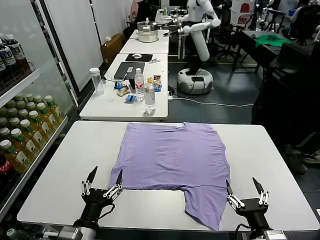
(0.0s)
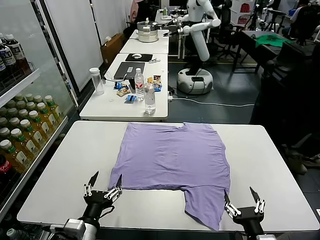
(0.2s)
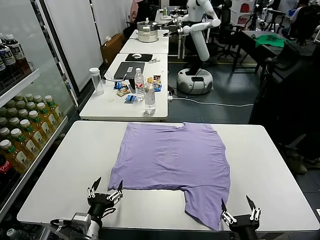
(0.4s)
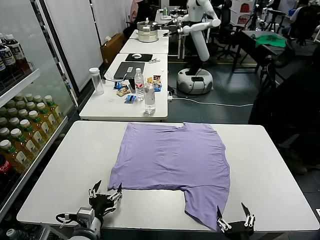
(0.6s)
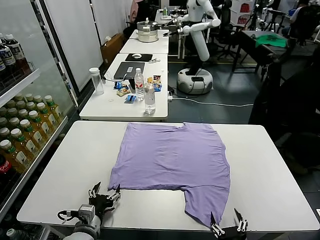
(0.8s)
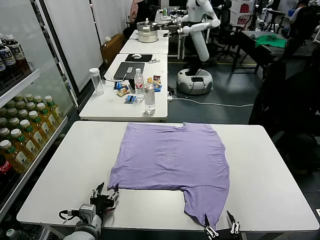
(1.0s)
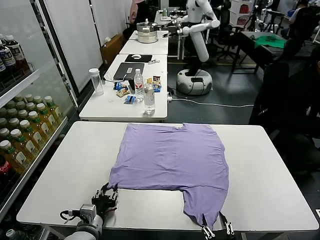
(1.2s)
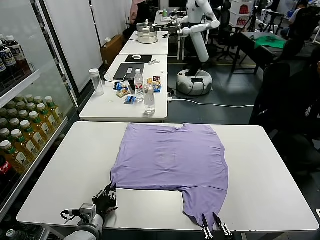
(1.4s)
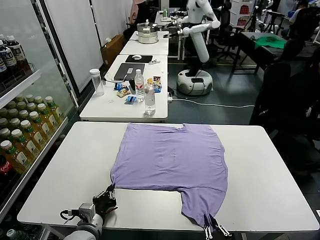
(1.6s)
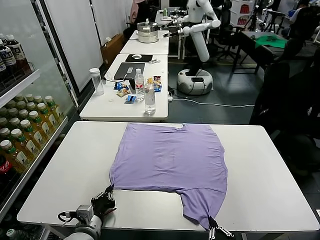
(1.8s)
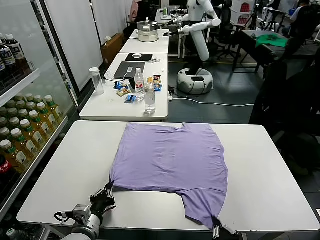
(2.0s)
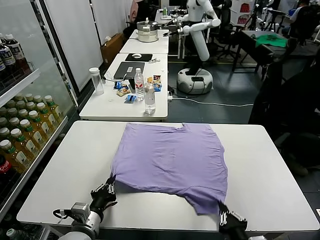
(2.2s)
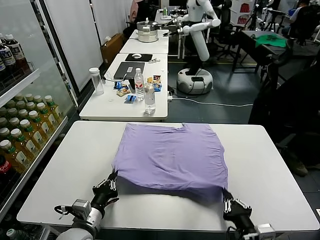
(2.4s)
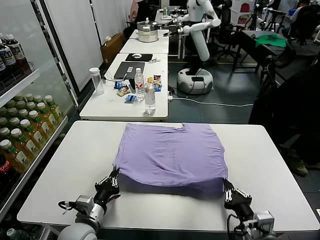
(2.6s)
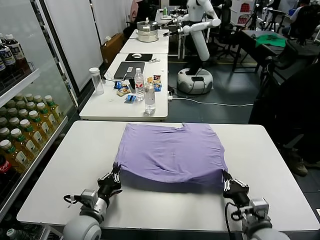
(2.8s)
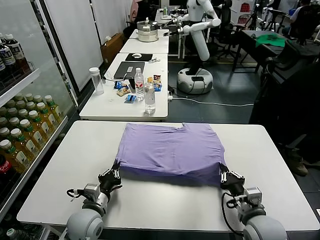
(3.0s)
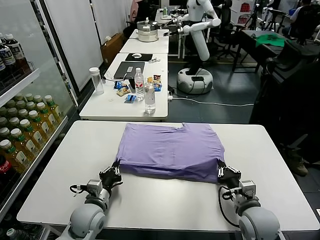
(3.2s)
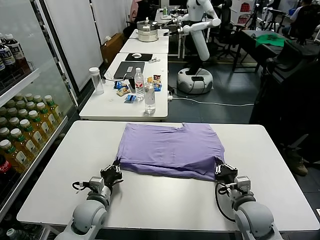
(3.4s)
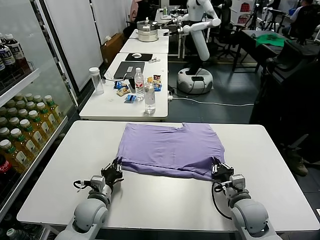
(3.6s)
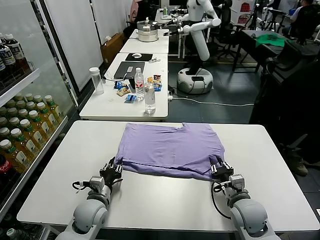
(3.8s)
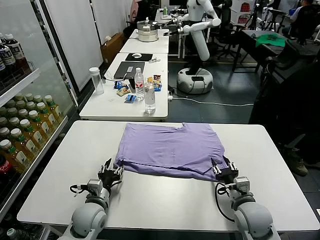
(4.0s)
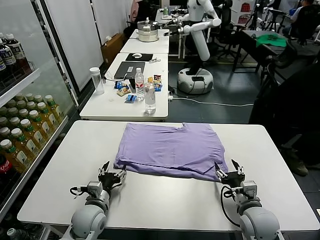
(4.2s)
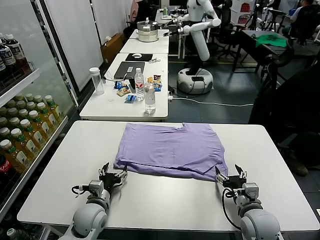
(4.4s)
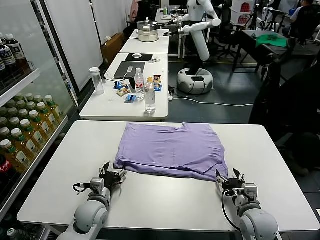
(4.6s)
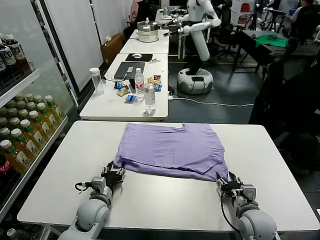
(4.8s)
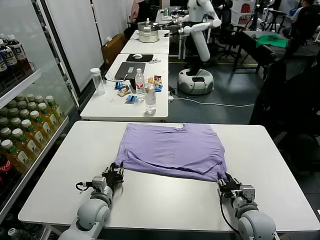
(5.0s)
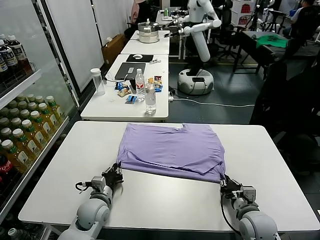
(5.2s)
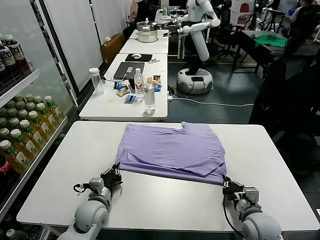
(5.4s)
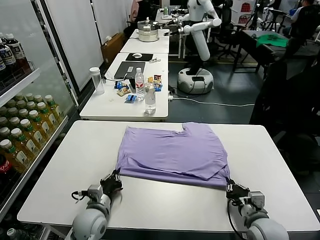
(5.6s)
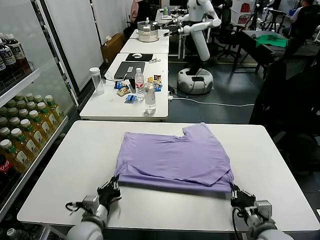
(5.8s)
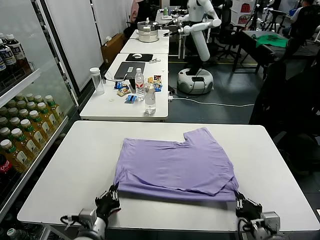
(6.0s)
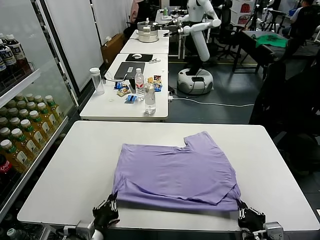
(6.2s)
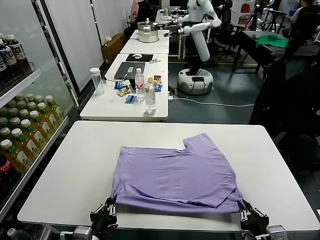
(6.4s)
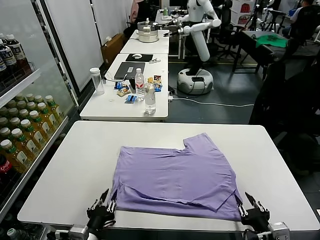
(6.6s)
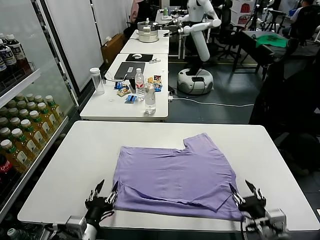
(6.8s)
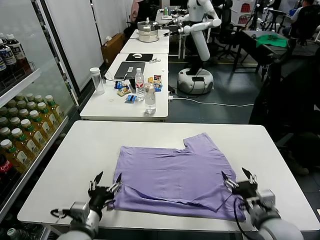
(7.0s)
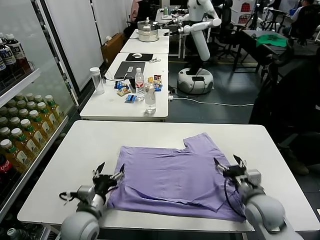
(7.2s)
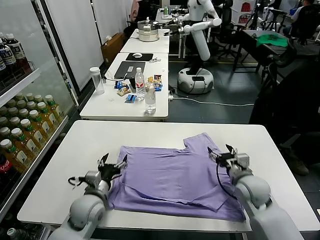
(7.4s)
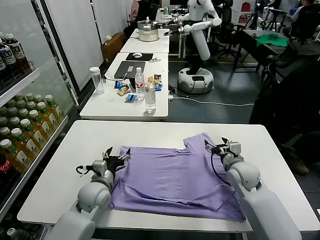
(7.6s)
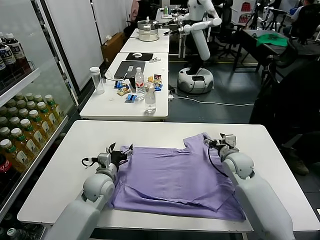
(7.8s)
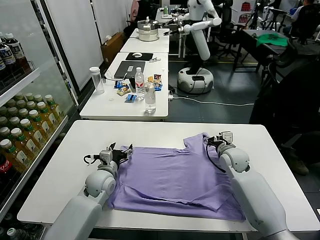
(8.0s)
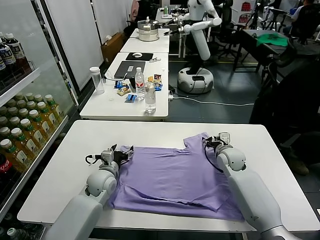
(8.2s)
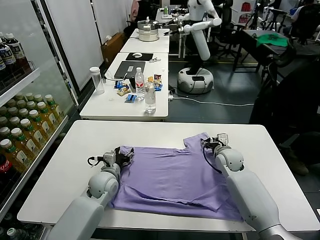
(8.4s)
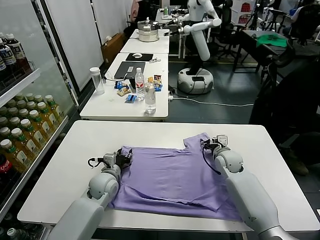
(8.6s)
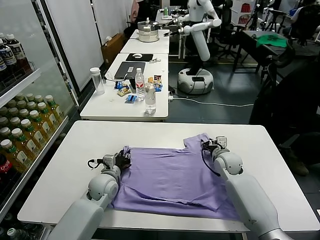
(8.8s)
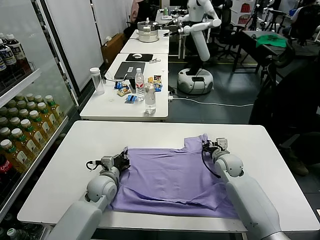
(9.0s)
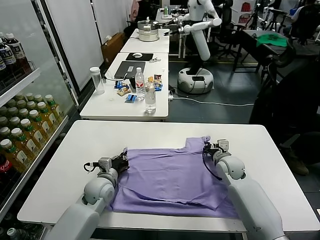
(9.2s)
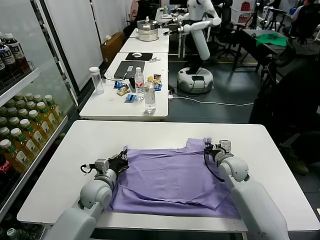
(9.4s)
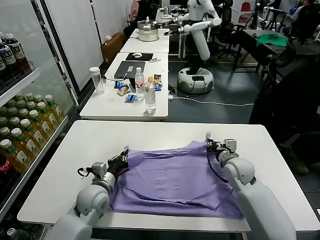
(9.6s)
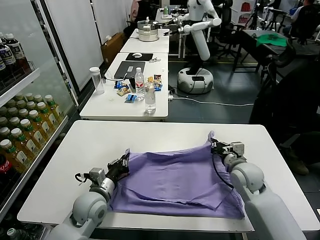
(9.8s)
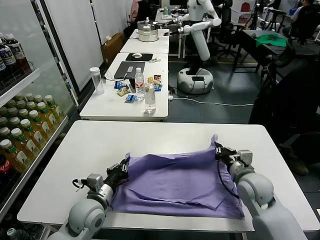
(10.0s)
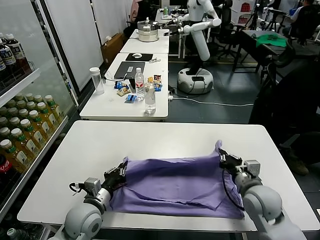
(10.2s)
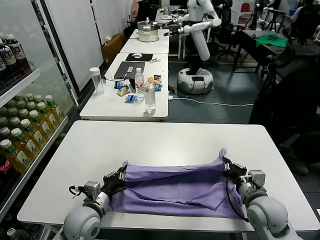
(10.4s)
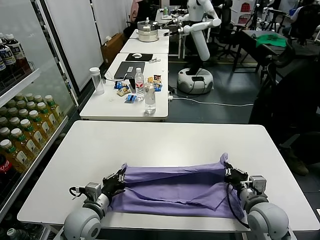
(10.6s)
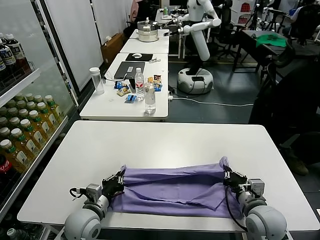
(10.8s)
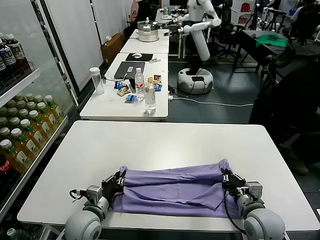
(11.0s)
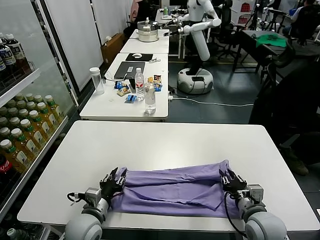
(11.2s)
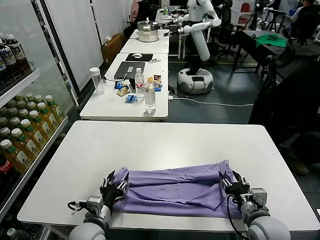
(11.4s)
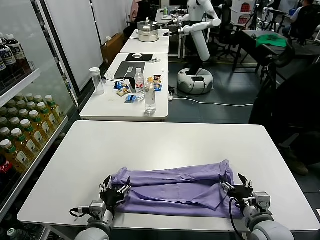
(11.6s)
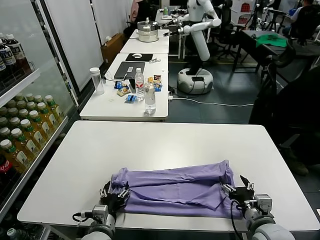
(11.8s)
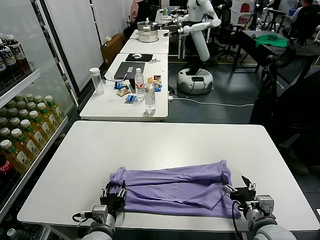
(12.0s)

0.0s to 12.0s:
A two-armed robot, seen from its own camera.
Task of the whole recording: fold and organize the clothes.
Step, 0.0s to 1.8s: use both grippers simultaneously to clamp the lower edge of the clothing fabric.
Step, 2.2s to 3.8s: use both grippers to drag the lower edge of the fabric forward and fold it over the upper edge.
Step, 4.0s to 6.6s: Drag the clothes downward with both gripper.
Step, 6.8s to 9.0s: use both grippers simultaneously to clamp the upper edge of the clothing fabric.
Step, 9.2s to 11.4s: use both grippers to drag the upper edge of the fabric backward and fold it over the lower edge.
1.6s to 3.0s: The left gripper shifts about 5 cm forward, while the right gripper goes approximately 15 cm forward.
3.0s to 4.4s: The left gripper opens up. Meanwhile the right gripper opens its fingers.
4.4s to 6.0s: Both grippers move backward, about 10 cm. The right gripper closes its fingers; the left gripper closes up.
6.0s to 7.6s: The left gripper shifts about 15 cm forward, and opens. The right gripper travels forward by approximately 30 cm, and opens up.
7.6s to 9.0s: The right gripper shifts by some 5 cm, and closes its fingers, while the left gripper closes up.
9.0s to 10.4s: The left gripper heads backward, covering roughly 15 cm. The right gripper heads backward, covering approximately 20 cm.
10.4s to 12.0s: The right gripper travels backward by about 5 cm, and opens its fingers. Meanwhile the left gripper heads backward and downward, covering roughly 5 cm, and opens its fingers.

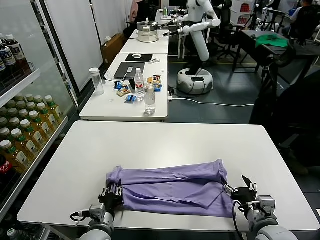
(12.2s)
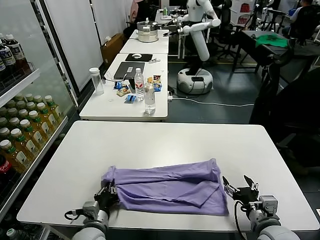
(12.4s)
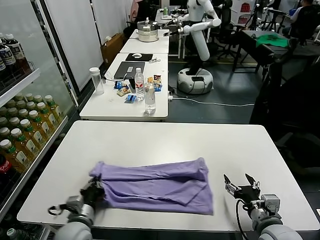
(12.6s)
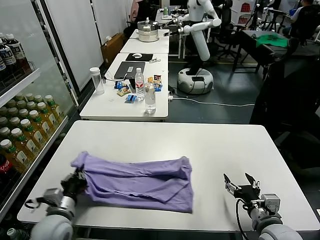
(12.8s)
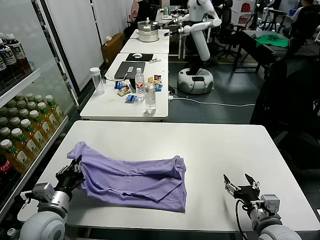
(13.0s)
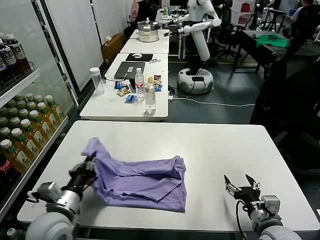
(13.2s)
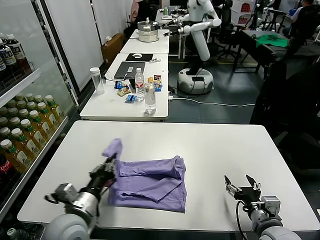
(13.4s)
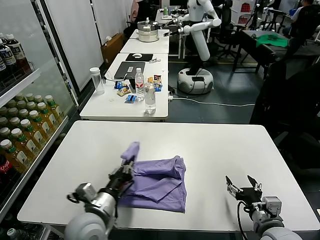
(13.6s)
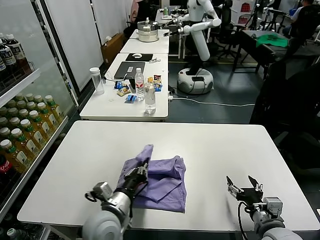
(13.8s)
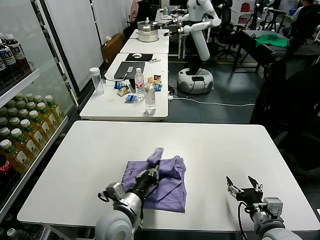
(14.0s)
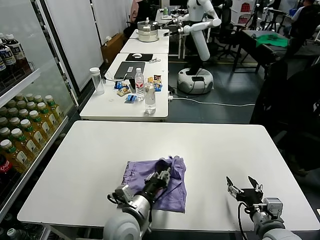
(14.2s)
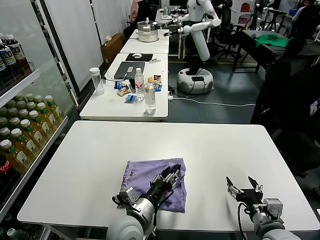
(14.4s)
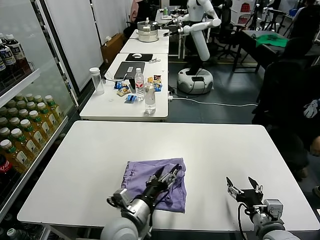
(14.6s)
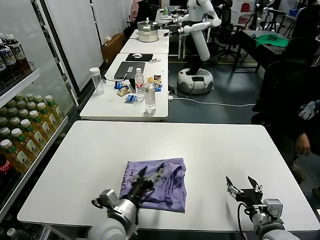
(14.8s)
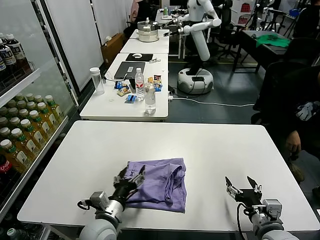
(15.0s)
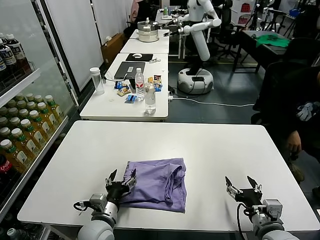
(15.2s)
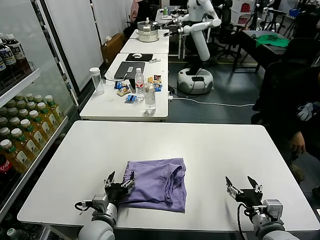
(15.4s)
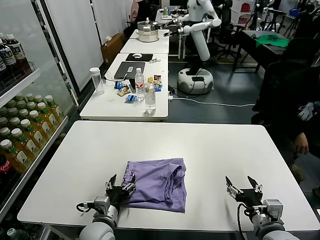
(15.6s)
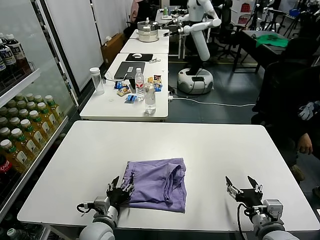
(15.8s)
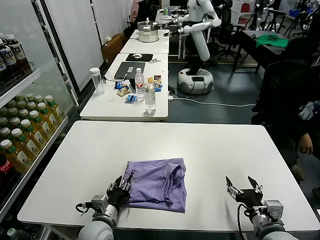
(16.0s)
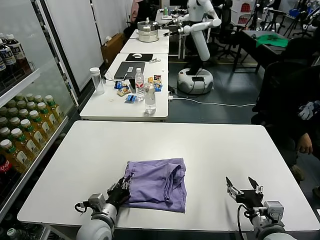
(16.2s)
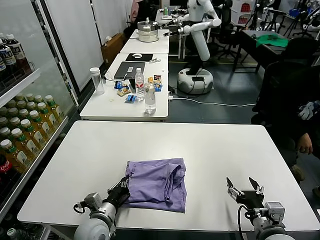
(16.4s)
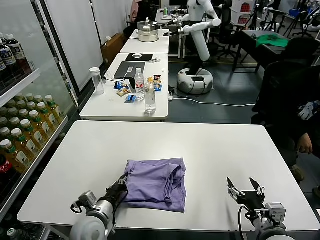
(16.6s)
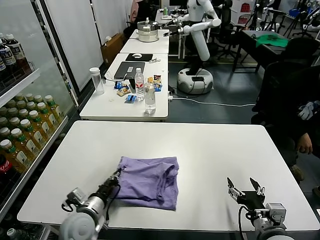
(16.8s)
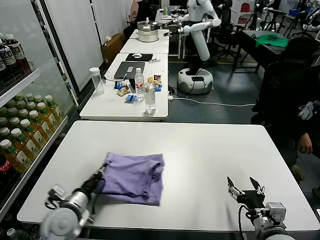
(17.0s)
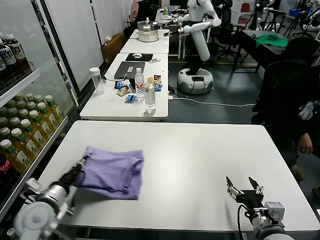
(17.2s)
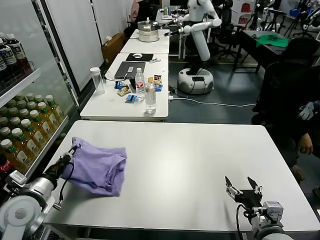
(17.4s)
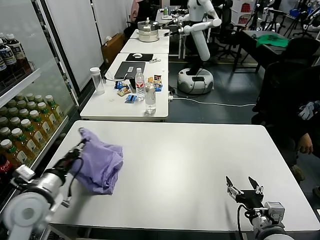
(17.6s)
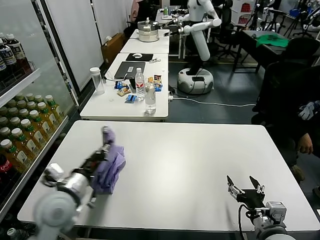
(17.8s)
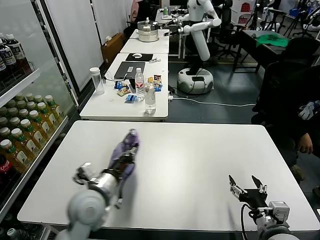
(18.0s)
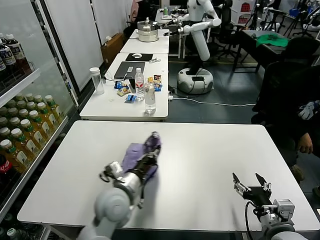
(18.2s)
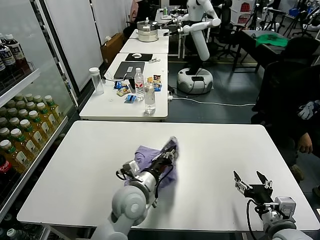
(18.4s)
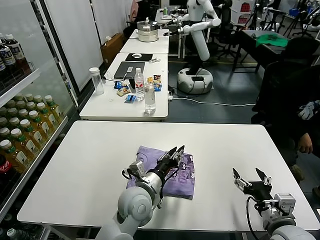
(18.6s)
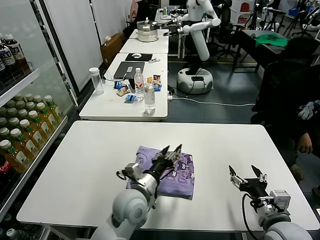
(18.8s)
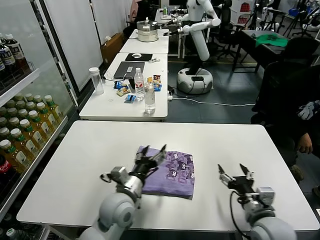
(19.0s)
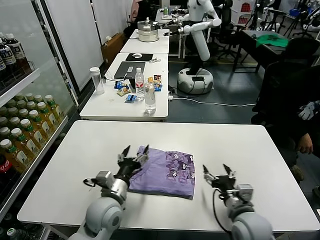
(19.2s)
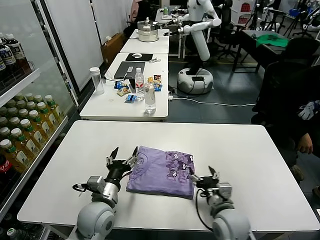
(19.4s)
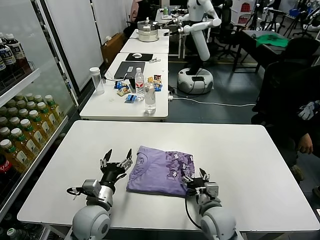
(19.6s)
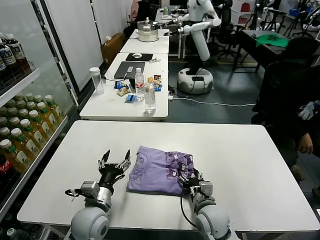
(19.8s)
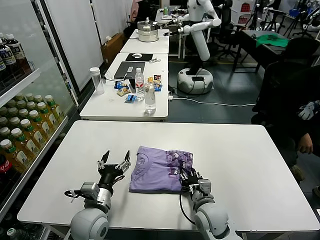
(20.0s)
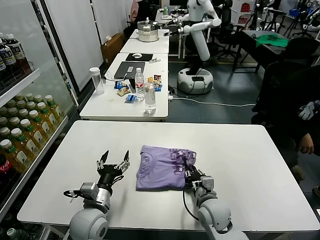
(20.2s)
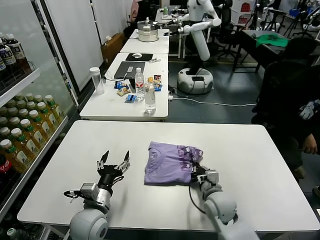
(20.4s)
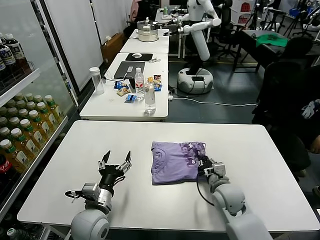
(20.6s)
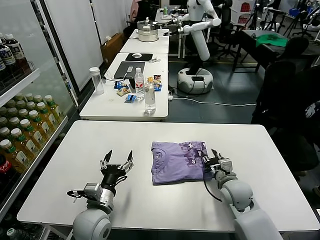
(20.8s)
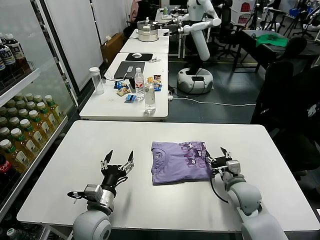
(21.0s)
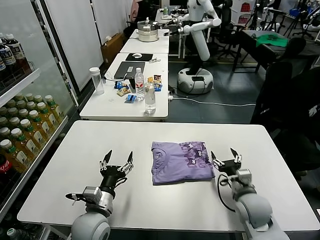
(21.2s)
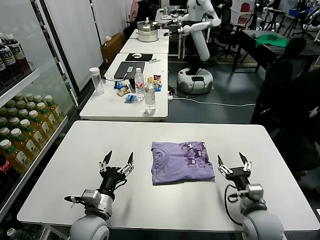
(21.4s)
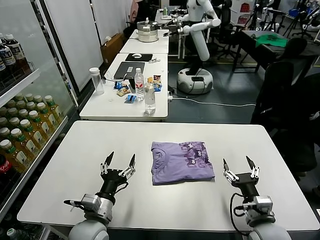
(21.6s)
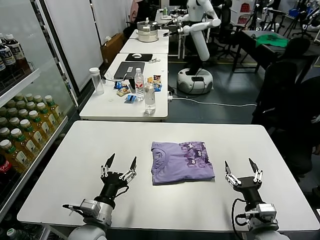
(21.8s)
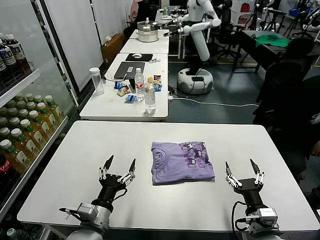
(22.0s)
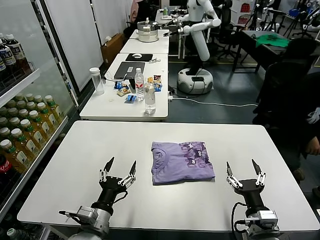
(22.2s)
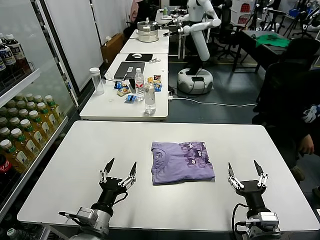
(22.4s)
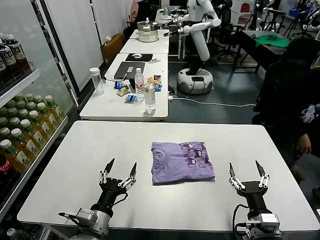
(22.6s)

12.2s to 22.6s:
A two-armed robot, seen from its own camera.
Task of the whole recording: fold and organize the clothes.
Step, 12.8s to 14.6s: use the left gripper to drag the left edge of the fabric to the left and folds it over the right edge.
Step, 14.8s to 18.6s: Flip the folded clothes over with left gripper.
Step, 18.8s to 21.0s: Drag the clothes to the center of the table.
12.2s to 13.6s: The left gripper shifts approximately 10 cm upward, and closes.
13.6s to 15.2s: The left gripper moves downward, roughly 10 cm, goes to the right and returns, about 10 cm each way, and opens its fingers.
15.2s to 16.6s: The left gripper closes.
16.6s to 18.2s: The left gripper shifts some 10 cm upward, and travels to the left and back again, roughly 15 cm each way.
18.2s to 19.6s: The right gripper moves to the left, forward and downward, roughly 20 cm, while the left gripper ends up some 5 cm from where it was, and opens its fingers.
19.6s to 21.2s: The right gripper shifts roughly 10 cm to the right, and closes and opens again.
21.2s to 22.6s: The right gripper goes roughly 15 cm backward; the left gripper shifts approximately 5 cm backward.
